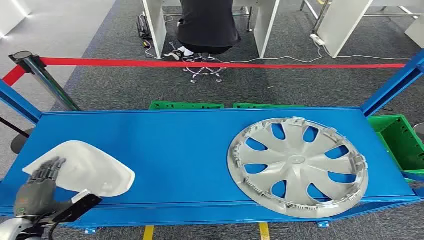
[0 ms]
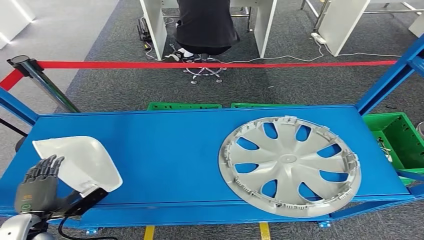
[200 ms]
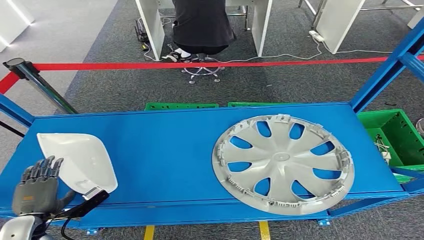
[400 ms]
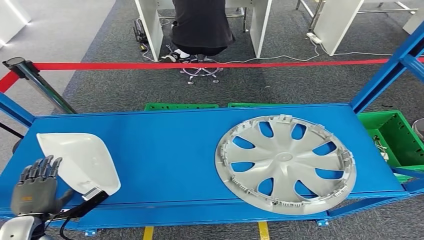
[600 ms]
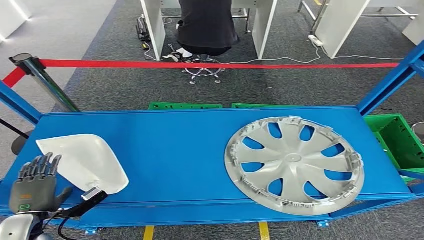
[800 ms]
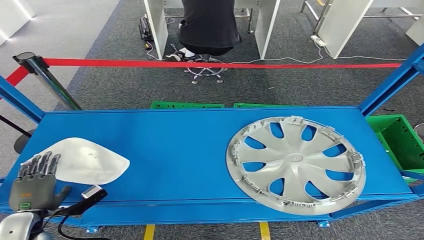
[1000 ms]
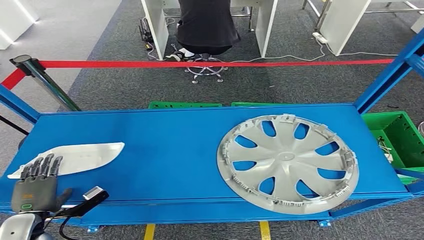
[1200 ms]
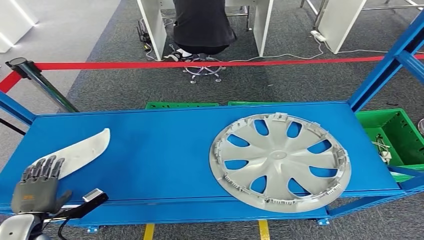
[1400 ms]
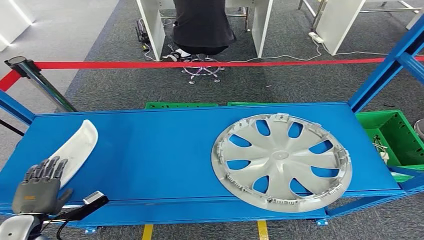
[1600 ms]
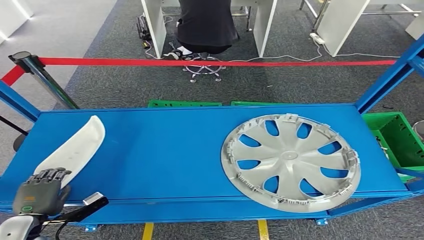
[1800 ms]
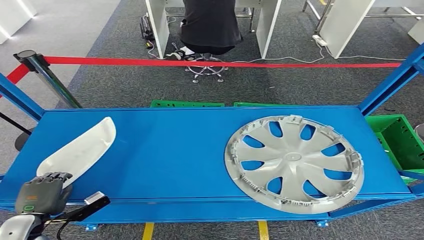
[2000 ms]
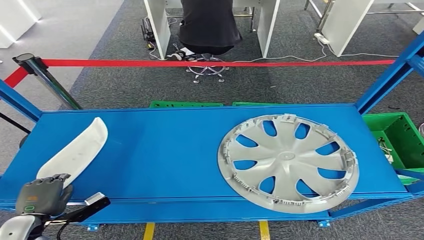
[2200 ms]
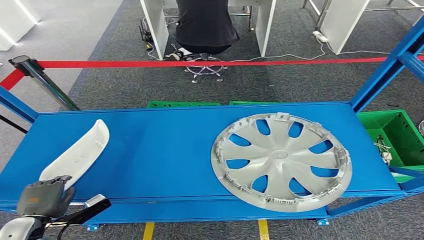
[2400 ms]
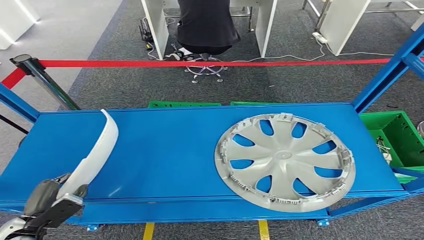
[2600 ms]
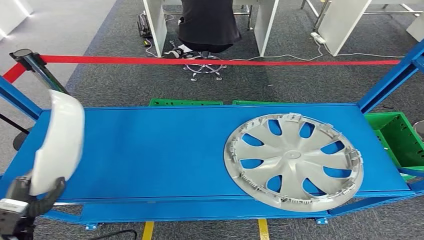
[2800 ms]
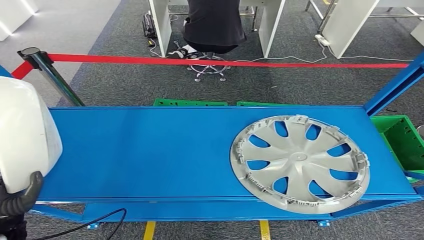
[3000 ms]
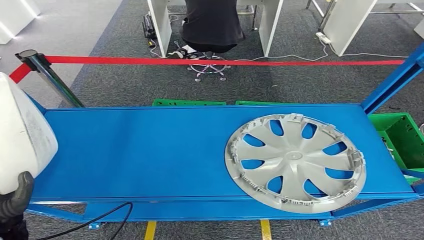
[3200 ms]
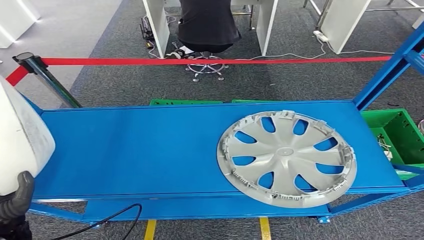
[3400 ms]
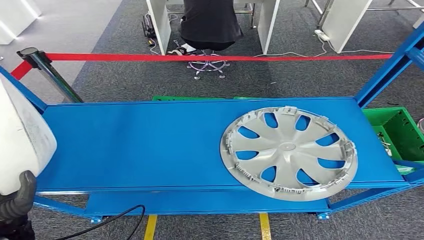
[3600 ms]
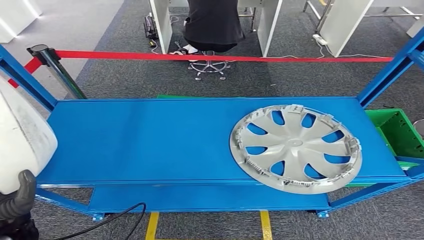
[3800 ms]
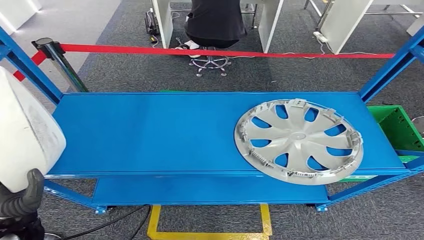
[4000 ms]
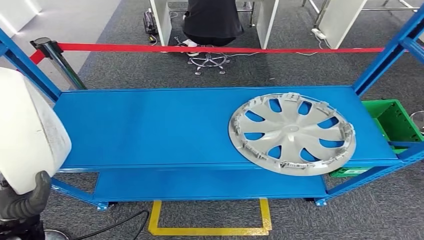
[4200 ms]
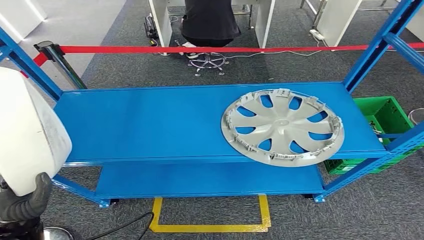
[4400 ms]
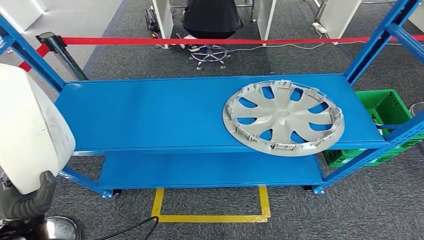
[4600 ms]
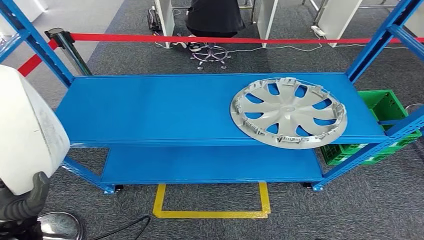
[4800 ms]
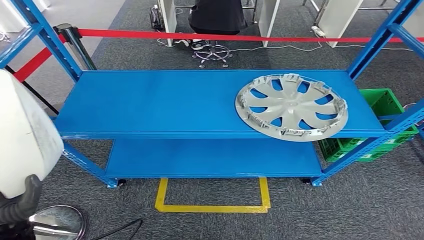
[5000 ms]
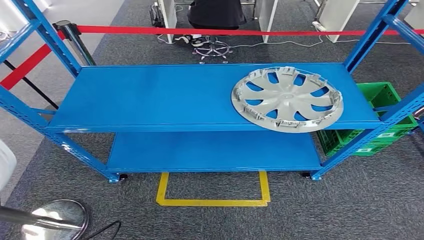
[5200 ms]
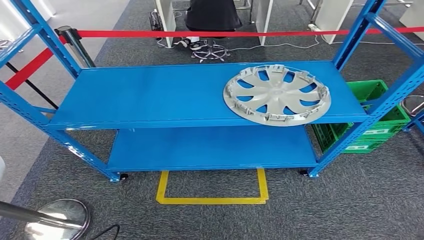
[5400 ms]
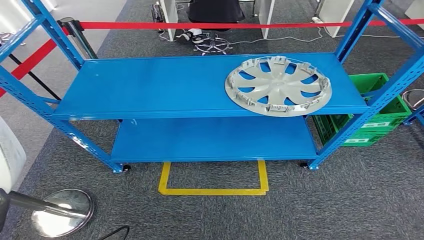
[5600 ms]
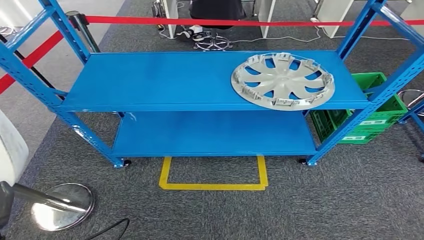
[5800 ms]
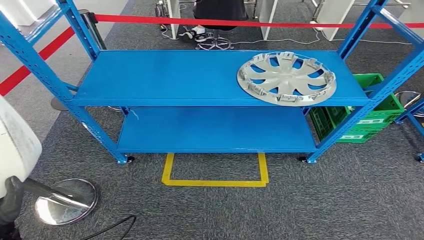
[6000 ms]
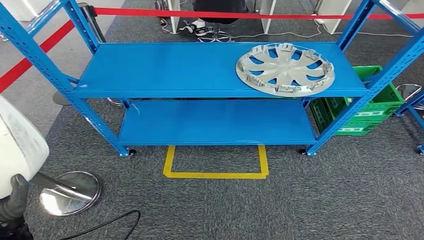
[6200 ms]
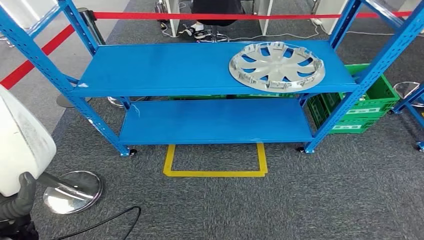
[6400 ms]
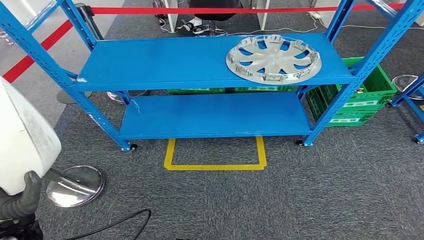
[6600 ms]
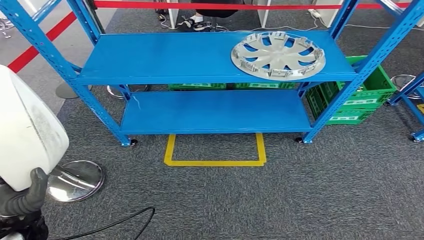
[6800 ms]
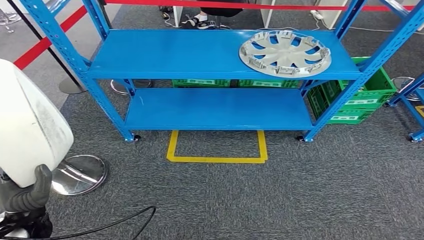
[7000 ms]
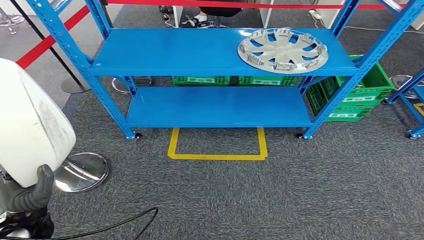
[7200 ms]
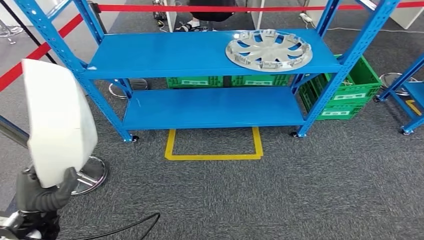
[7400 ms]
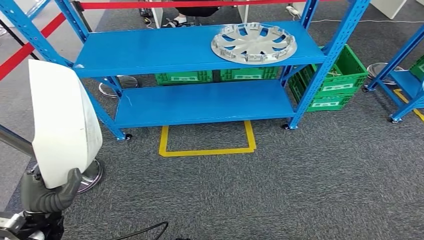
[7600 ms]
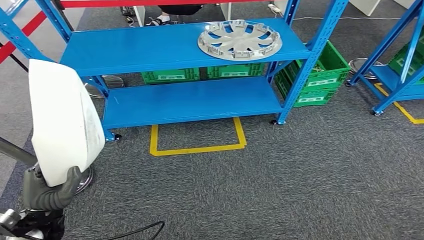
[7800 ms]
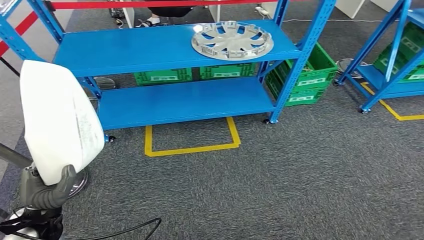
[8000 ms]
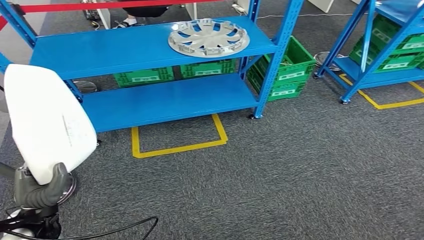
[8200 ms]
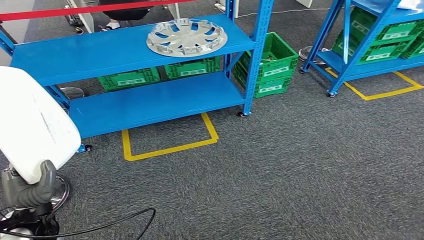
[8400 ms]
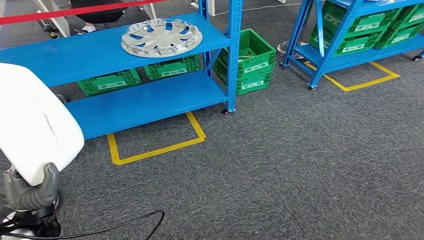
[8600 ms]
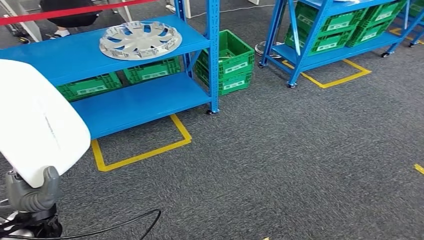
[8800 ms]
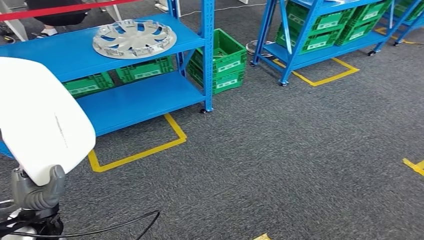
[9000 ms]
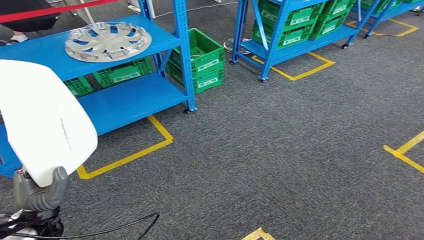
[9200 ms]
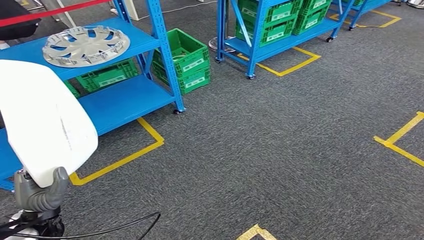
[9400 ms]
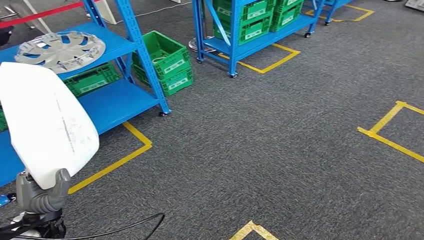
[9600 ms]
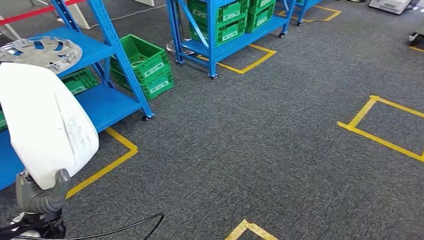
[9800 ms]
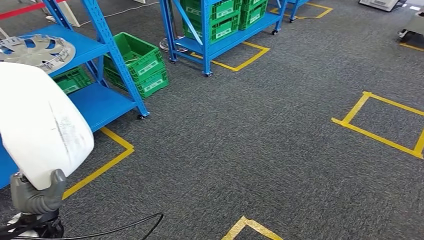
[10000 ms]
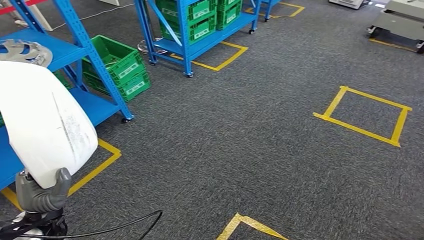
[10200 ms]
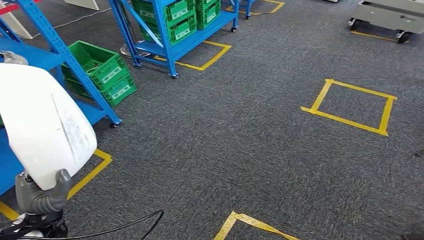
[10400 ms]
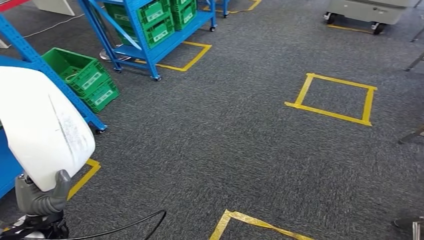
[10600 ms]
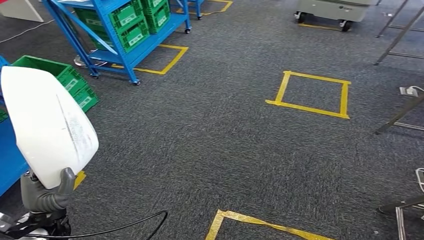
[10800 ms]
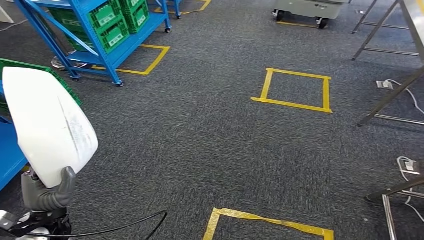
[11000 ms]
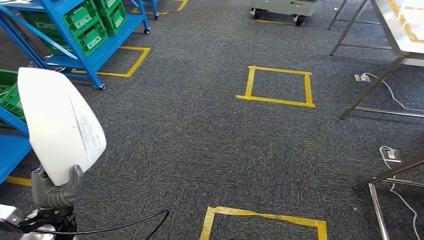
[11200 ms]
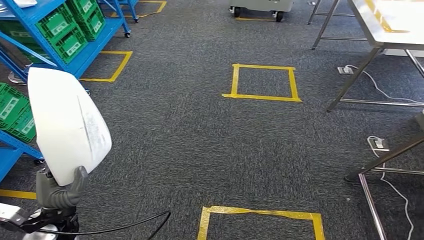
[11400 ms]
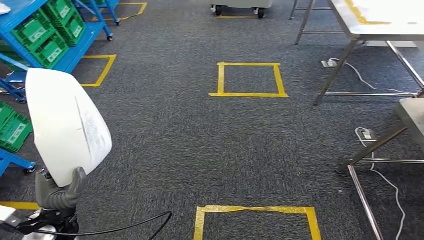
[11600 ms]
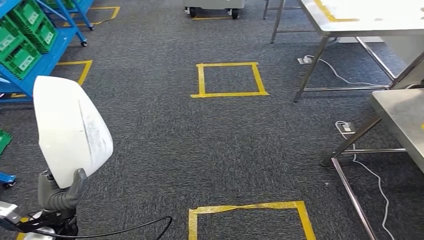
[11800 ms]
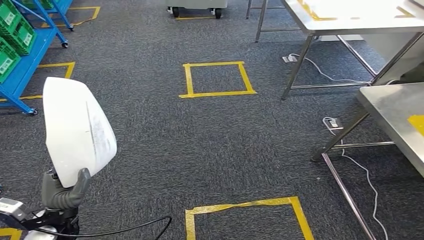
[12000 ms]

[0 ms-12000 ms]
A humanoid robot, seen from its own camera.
Step, 0 ms to 4800 ms: Pick up the small parts from the shelf.

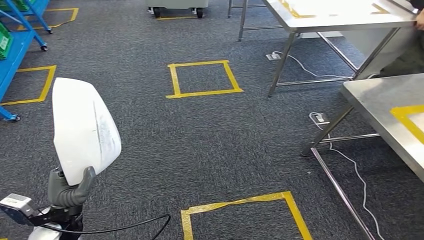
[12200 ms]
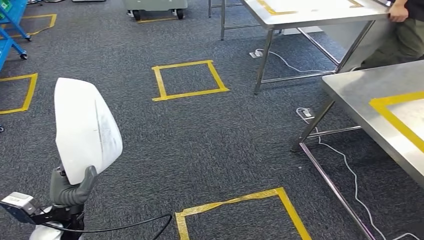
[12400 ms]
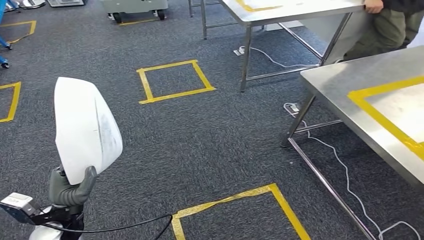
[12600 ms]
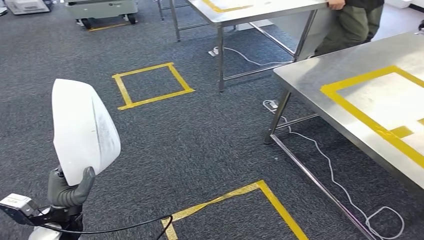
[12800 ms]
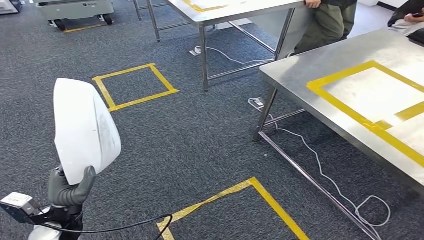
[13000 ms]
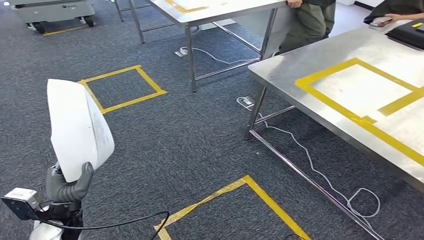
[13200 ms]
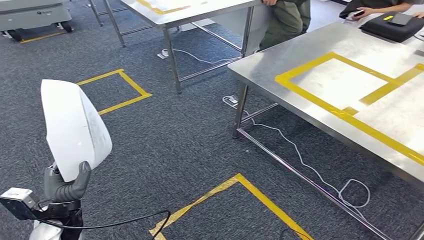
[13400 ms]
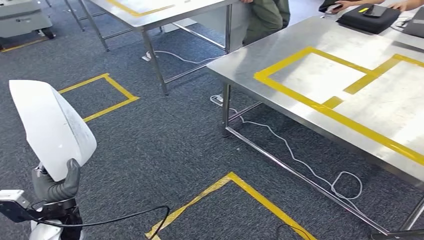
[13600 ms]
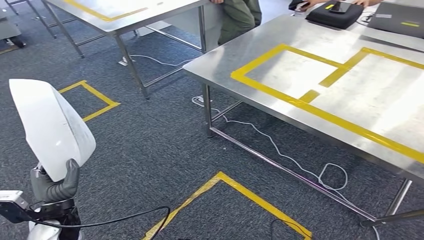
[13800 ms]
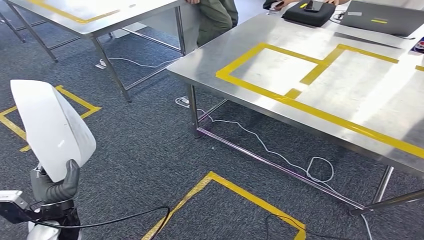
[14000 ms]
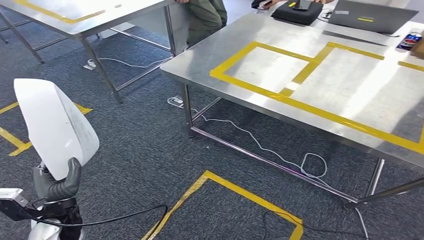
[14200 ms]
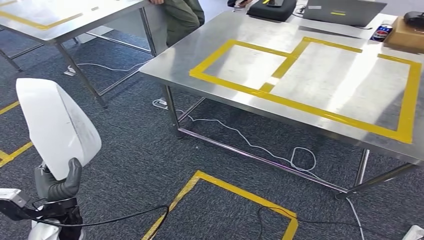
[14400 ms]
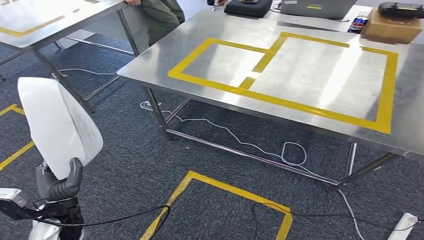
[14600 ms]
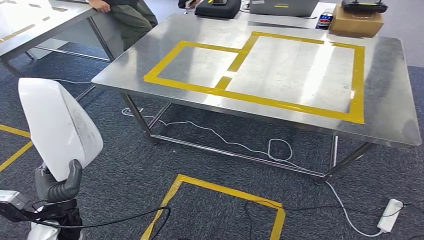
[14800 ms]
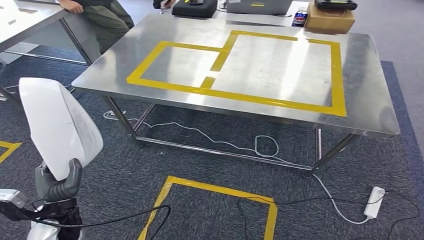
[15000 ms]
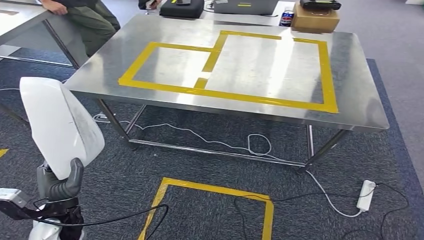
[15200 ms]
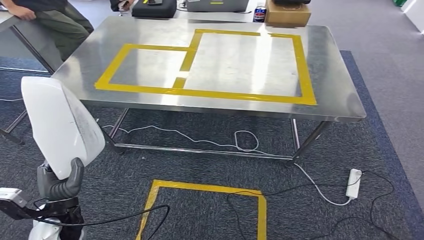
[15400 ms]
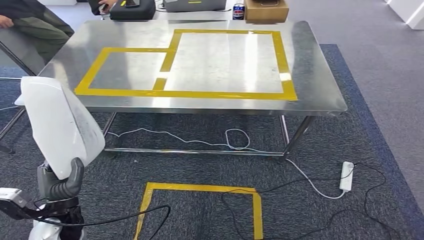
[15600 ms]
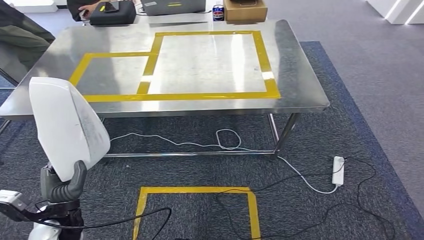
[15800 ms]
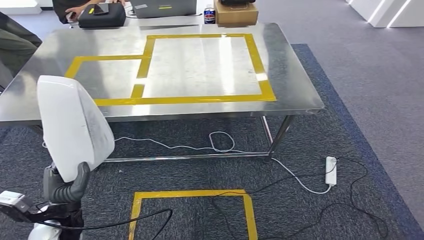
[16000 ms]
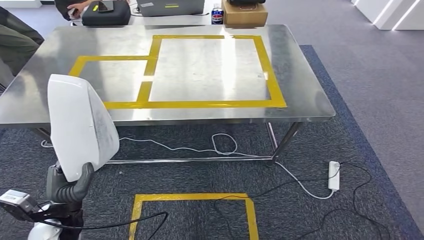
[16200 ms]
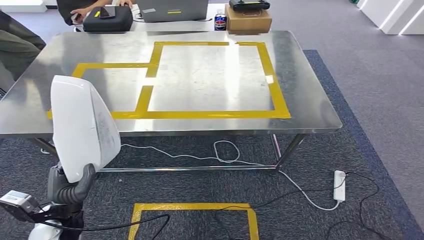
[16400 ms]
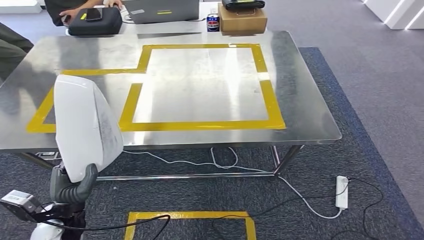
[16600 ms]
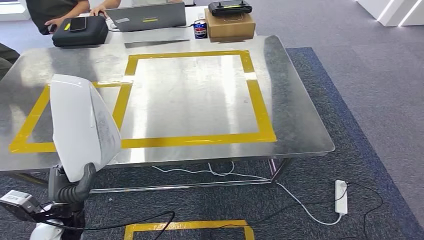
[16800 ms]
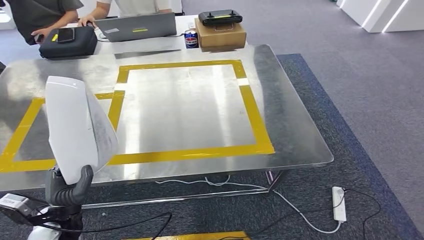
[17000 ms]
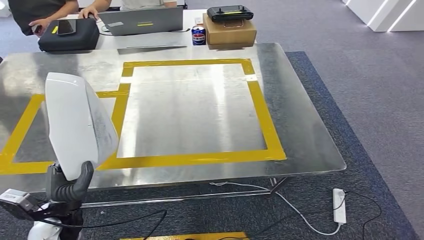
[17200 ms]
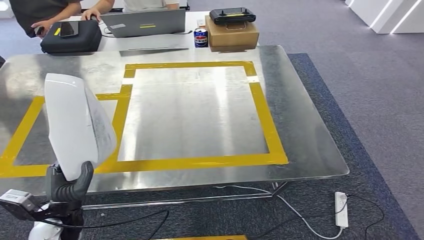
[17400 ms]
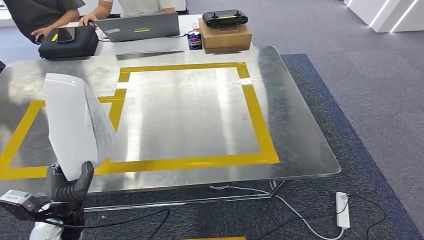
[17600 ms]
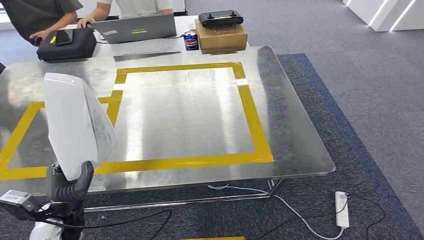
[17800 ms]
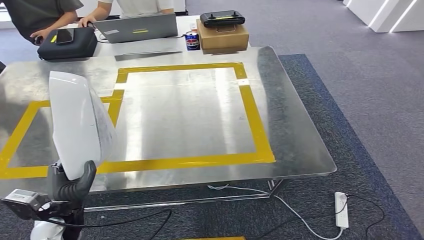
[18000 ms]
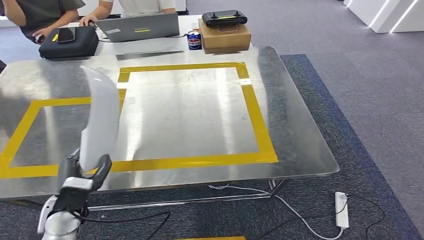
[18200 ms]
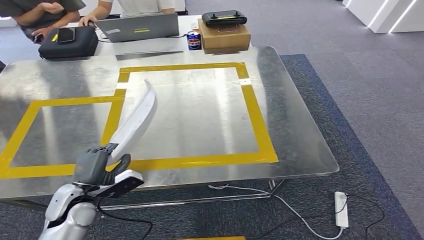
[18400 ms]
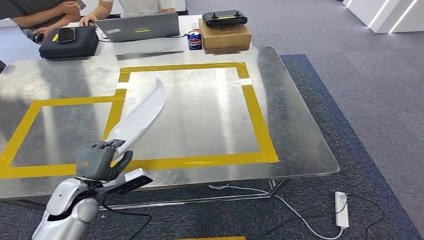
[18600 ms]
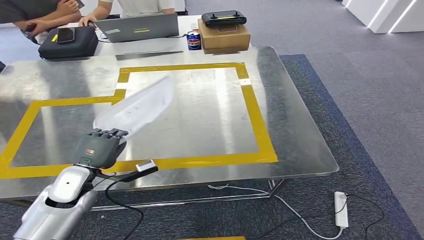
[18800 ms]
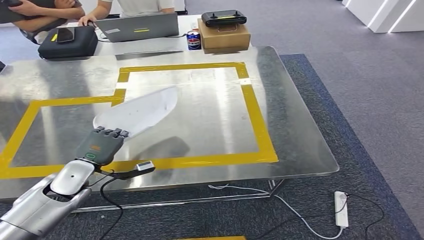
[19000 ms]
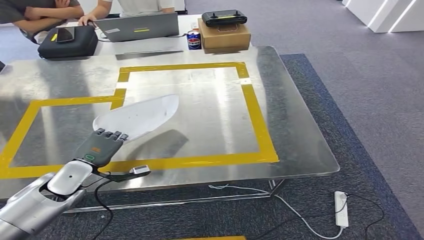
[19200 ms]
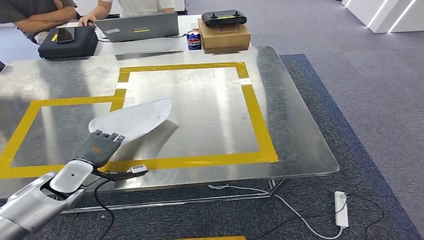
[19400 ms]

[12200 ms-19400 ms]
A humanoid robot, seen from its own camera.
Step, 12200 ms to 16600 ms: Move the small parts to the workbench.
18000 ms to 19400 ms: The left hand heads forward, covering about 10 cm.
